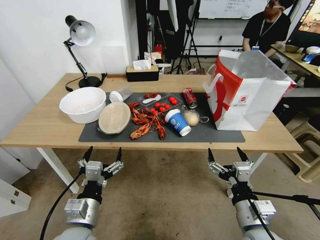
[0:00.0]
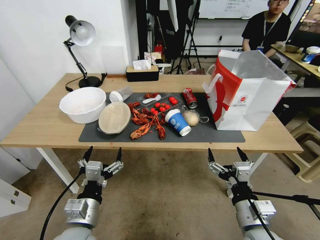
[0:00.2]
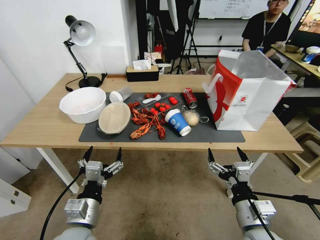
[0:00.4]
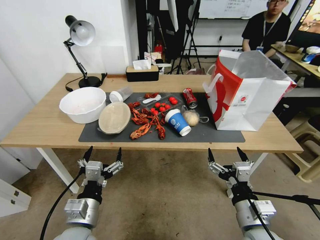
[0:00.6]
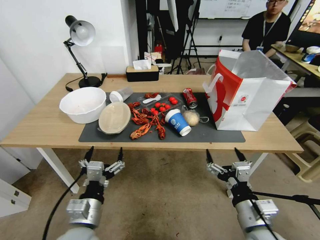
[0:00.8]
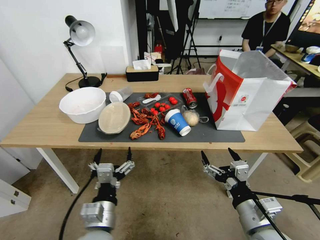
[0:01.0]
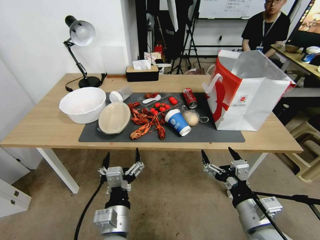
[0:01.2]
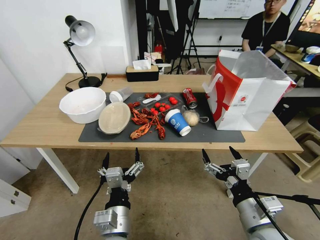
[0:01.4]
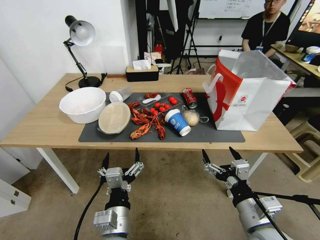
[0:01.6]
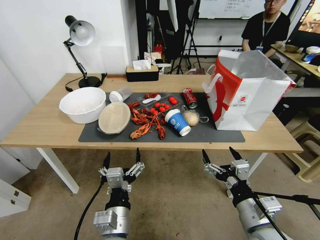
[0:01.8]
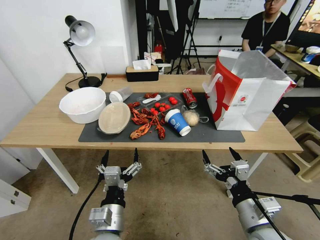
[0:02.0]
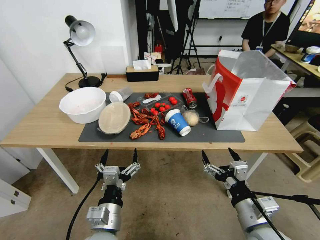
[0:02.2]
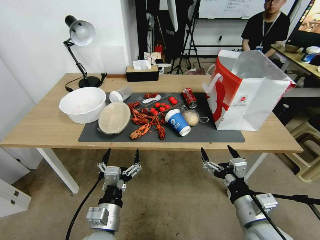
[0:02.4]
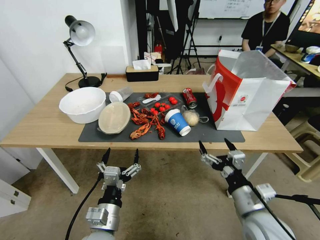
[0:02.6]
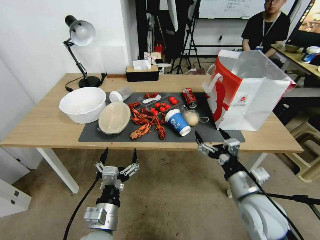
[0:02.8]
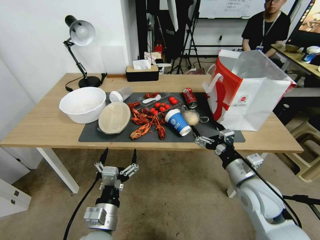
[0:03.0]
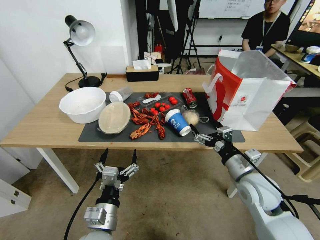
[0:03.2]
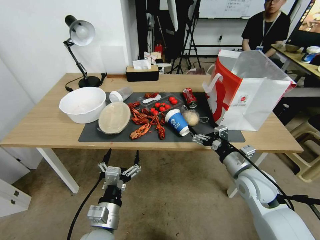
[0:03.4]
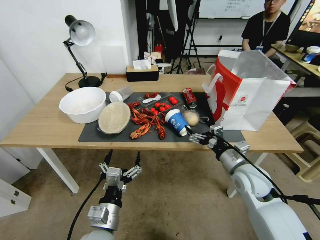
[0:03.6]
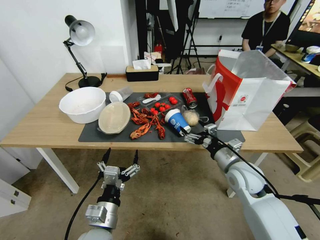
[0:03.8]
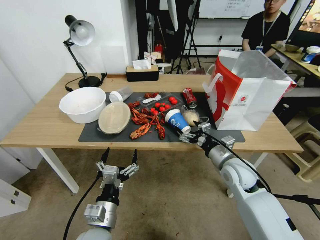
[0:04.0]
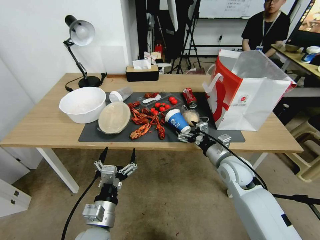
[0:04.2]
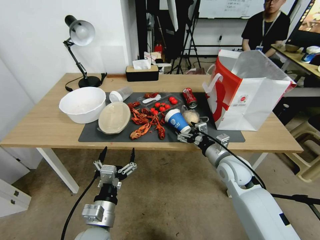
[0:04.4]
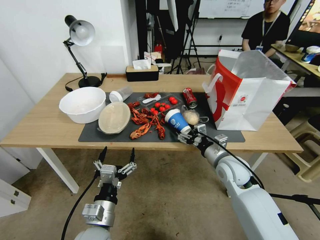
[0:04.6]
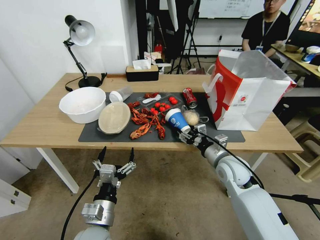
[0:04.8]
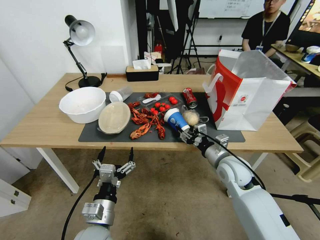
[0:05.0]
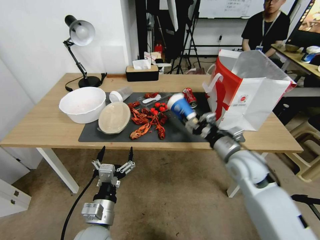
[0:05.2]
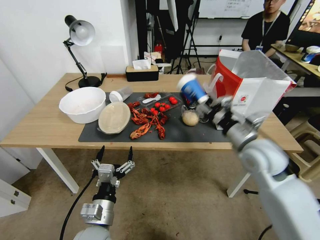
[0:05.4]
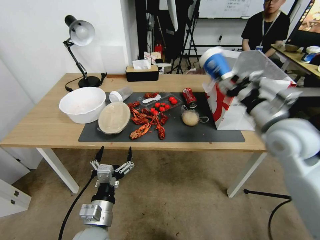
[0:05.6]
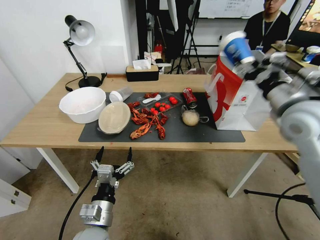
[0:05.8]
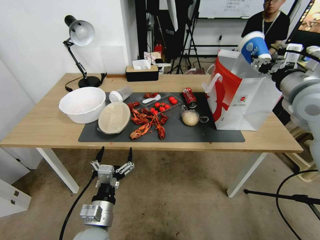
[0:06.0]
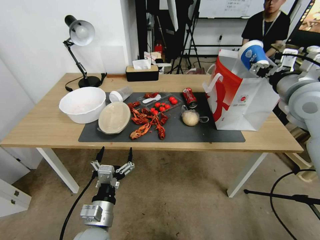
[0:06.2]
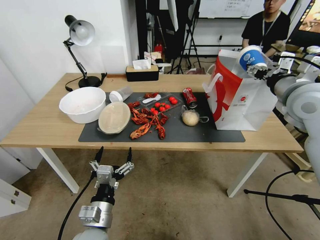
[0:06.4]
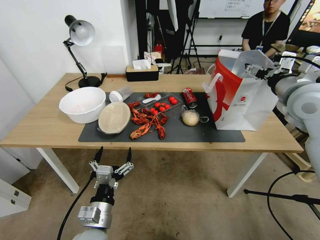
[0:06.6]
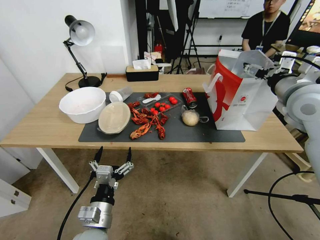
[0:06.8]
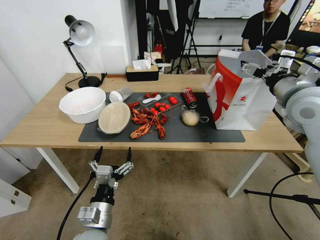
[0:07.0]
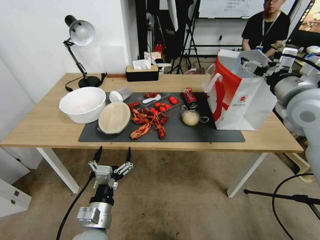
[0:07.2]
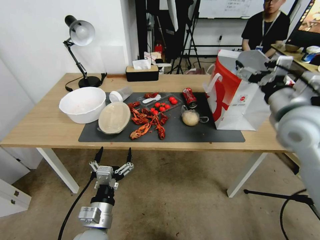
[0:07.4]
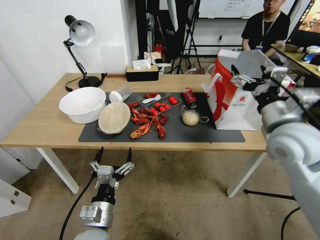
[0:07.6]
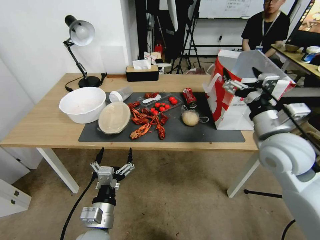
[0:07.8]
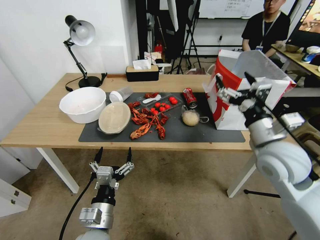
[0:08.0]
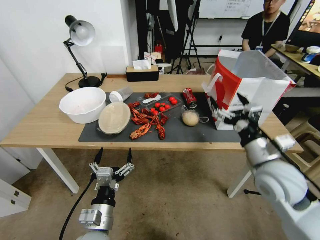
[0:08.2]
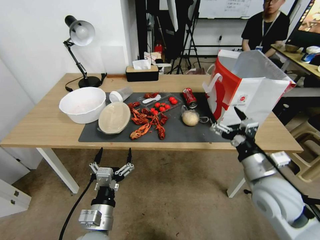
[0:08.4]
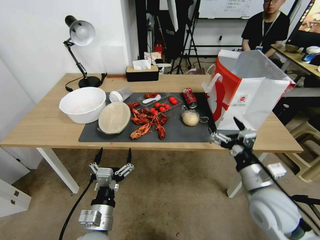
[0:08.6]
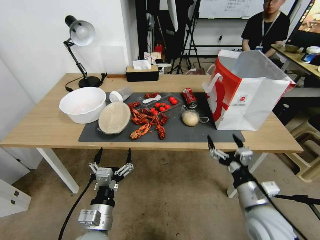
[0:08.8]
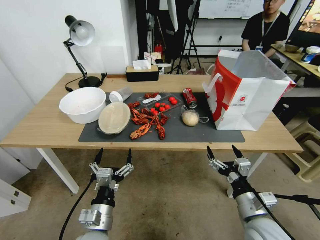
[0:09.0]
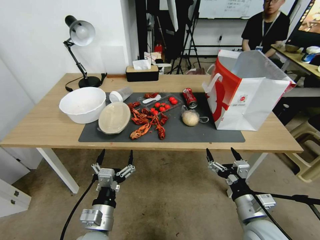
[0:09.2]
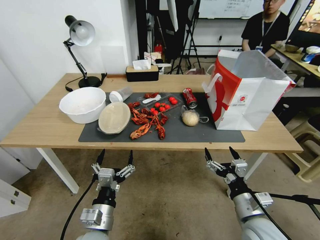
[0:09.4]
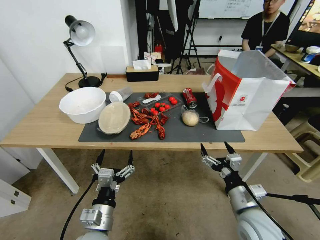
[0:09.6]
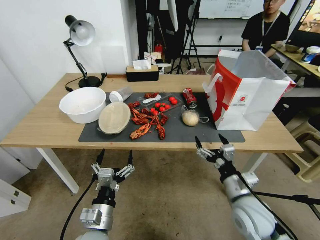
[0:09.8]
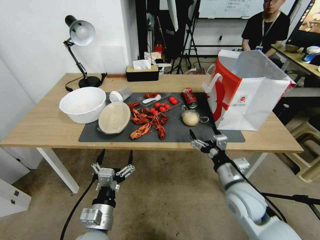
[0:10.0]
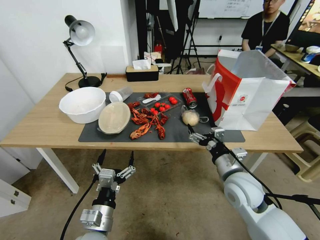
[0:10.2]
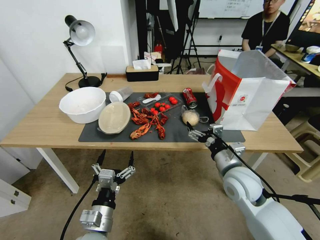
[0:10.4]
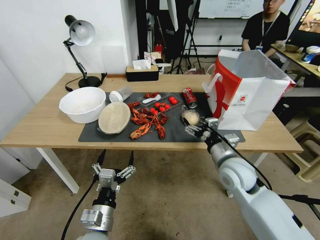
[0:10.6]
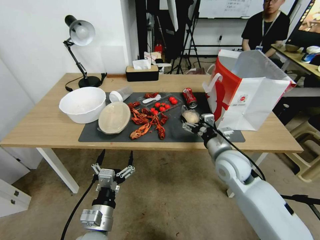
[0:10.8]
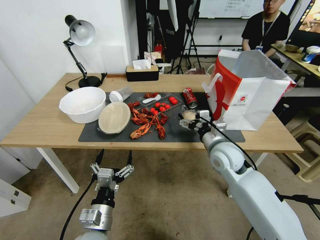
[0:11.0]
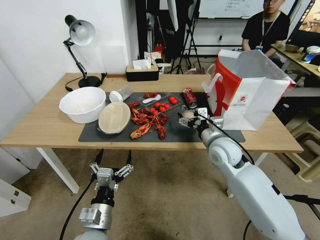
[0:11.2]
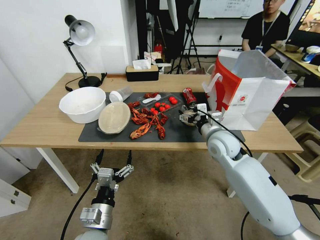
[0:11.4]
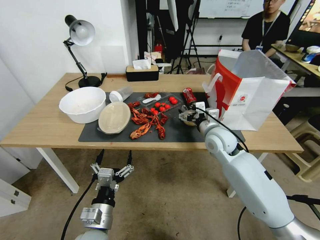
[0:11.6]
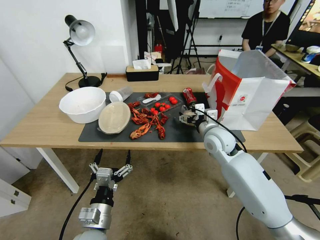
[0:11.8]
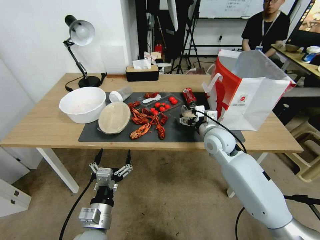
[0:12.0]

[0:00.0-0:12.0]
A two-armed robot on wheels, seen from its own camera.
0:01.6 to 0:03.0: The right gripper travels forward by some 10 cm. The left gripper travels to the left by approximately 5 cm.
0:03.0 to 0:04.4: The right gripper shifts some 10 cm forward.
0:04.4 to 0:06.0: The right gripper travels upward and to the right by approximately 30 cm, and closes.
0:06.0 to 0:07.6: The right gripper travels downward by roughly 5 cm, and opens.
0:07.6 to 0:09.0: The right gripper moves downward and backward, about 25 cm.
0:09.0 to 0:10.4: The right gripper heads forward, covering approximately 10 cm.
0:10.4 to 0:12.0: The right gripper shifts some 10 cm forward.

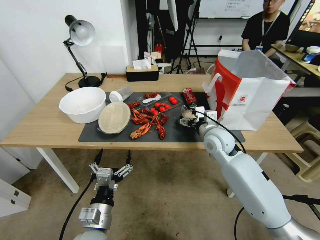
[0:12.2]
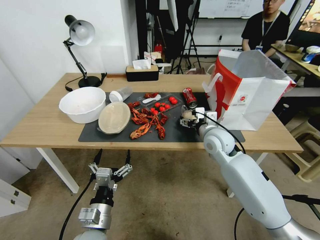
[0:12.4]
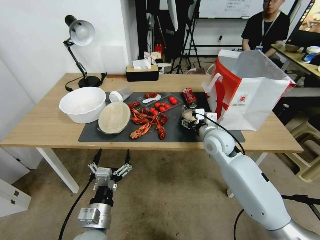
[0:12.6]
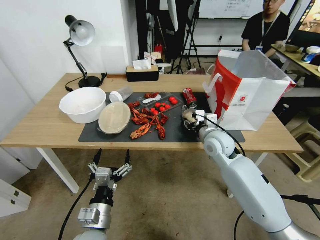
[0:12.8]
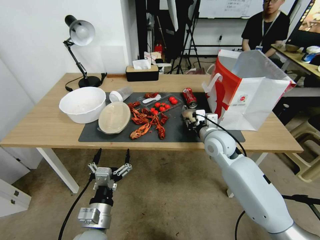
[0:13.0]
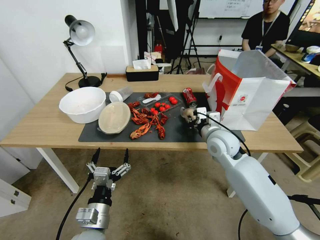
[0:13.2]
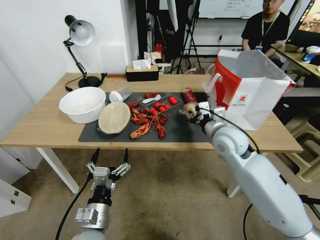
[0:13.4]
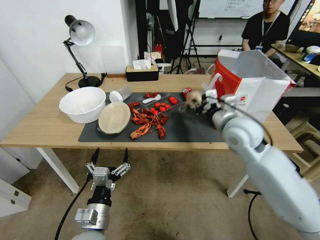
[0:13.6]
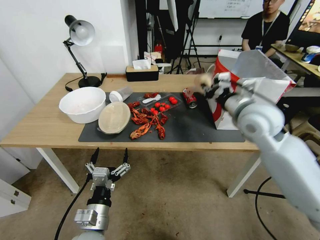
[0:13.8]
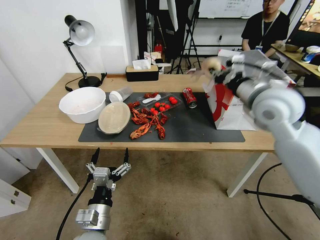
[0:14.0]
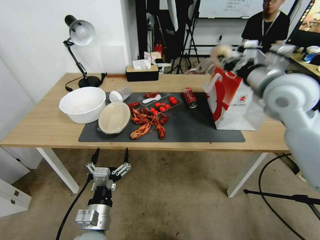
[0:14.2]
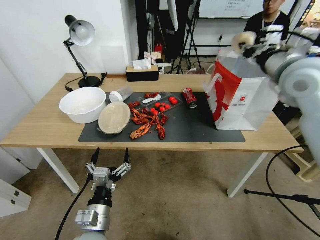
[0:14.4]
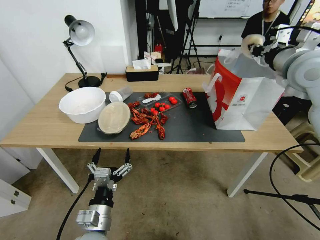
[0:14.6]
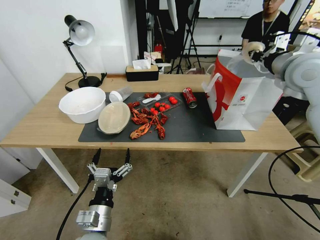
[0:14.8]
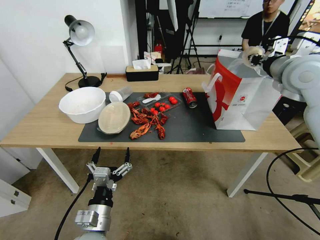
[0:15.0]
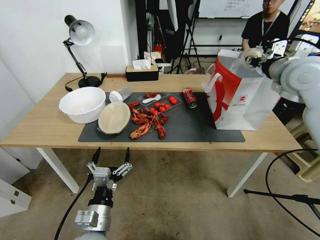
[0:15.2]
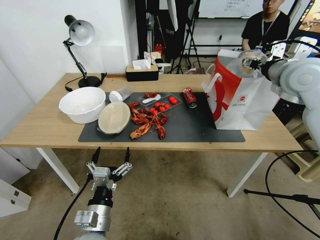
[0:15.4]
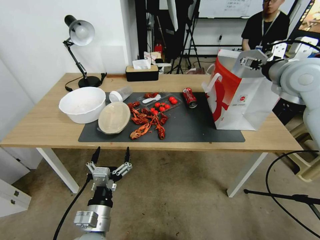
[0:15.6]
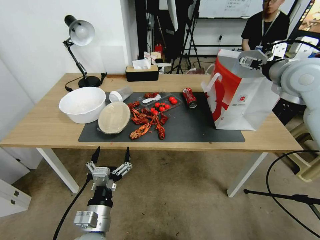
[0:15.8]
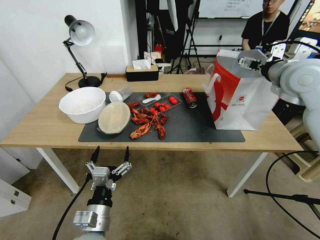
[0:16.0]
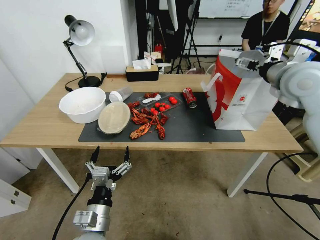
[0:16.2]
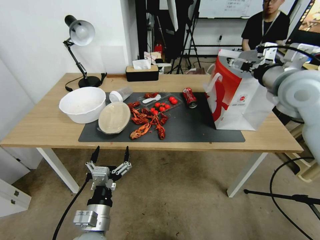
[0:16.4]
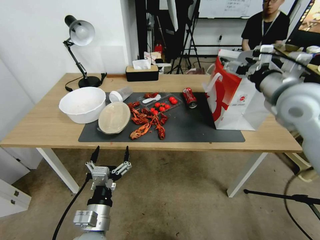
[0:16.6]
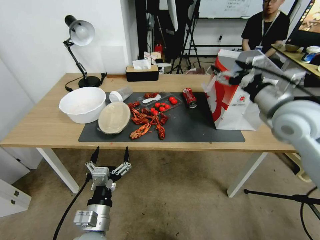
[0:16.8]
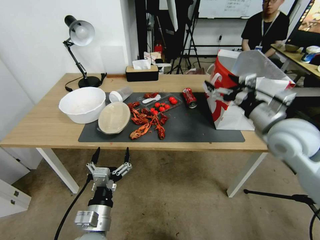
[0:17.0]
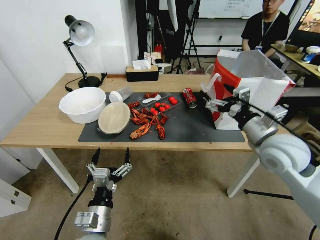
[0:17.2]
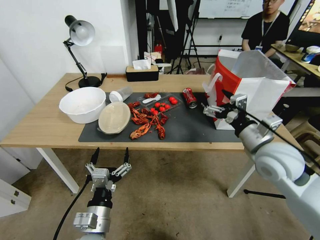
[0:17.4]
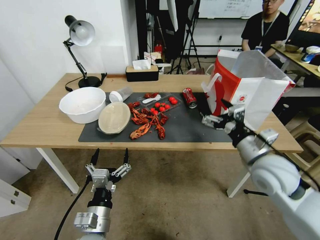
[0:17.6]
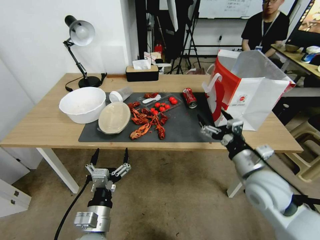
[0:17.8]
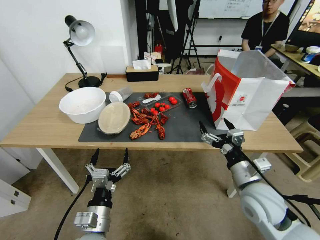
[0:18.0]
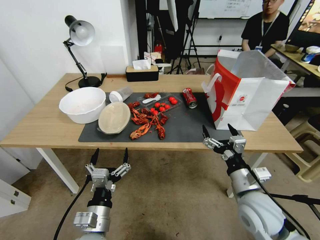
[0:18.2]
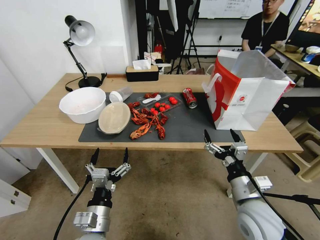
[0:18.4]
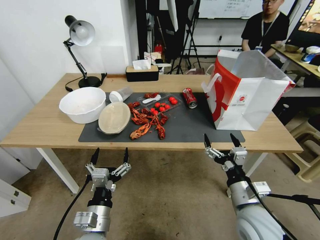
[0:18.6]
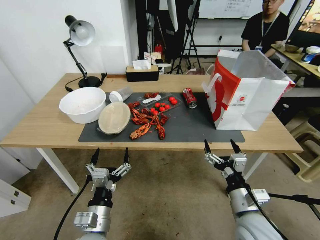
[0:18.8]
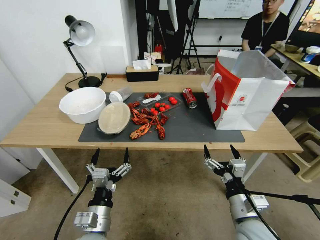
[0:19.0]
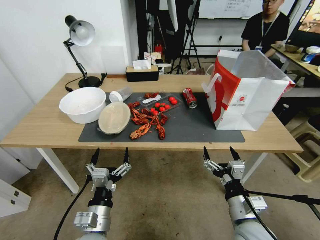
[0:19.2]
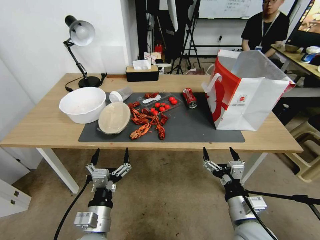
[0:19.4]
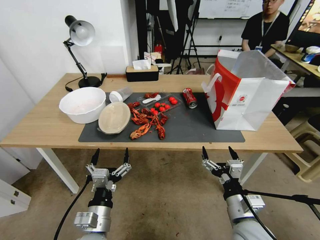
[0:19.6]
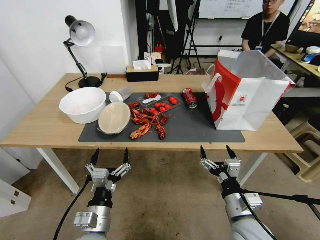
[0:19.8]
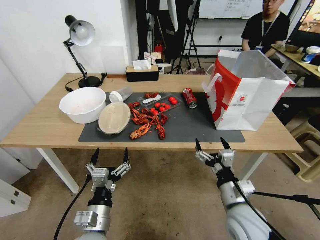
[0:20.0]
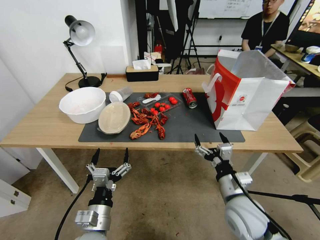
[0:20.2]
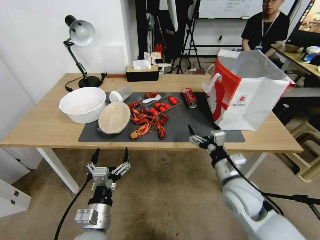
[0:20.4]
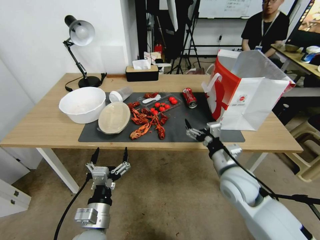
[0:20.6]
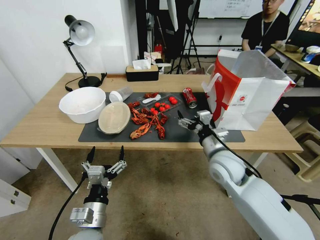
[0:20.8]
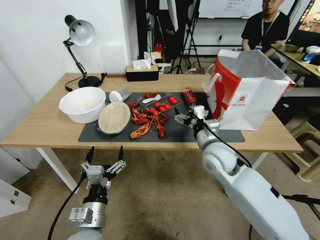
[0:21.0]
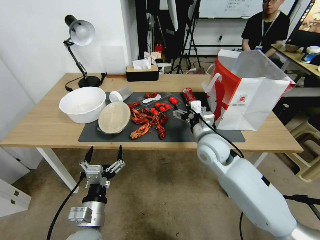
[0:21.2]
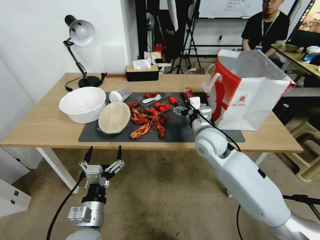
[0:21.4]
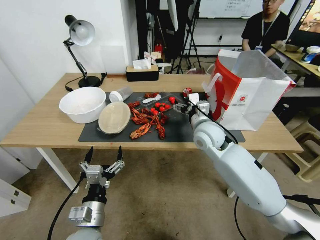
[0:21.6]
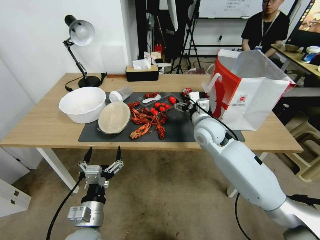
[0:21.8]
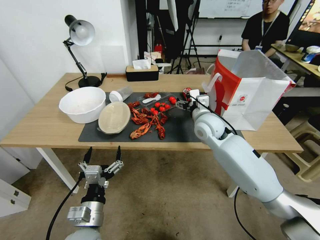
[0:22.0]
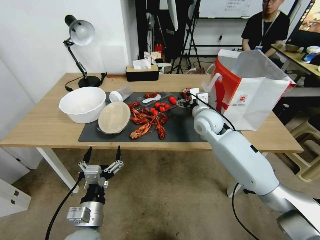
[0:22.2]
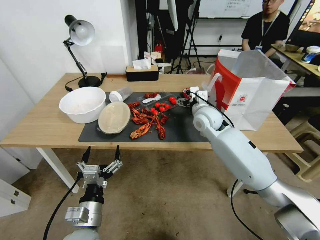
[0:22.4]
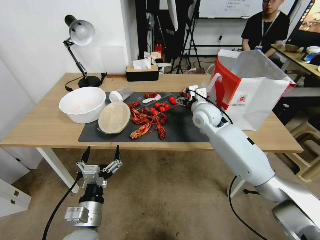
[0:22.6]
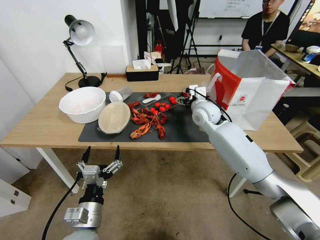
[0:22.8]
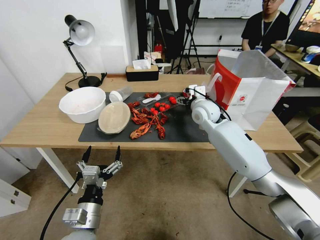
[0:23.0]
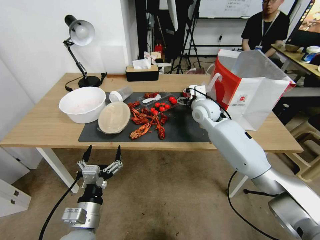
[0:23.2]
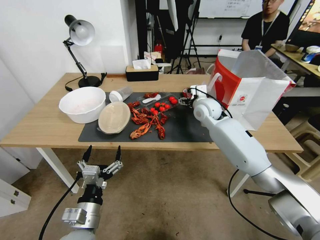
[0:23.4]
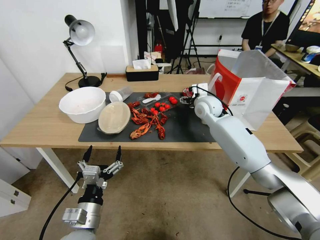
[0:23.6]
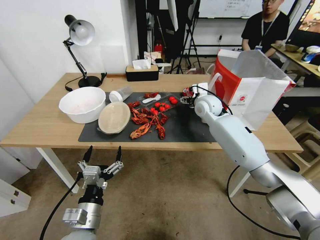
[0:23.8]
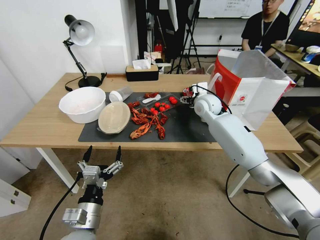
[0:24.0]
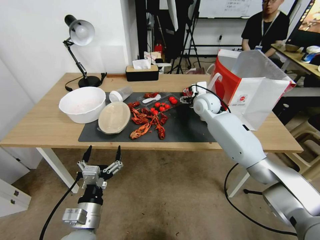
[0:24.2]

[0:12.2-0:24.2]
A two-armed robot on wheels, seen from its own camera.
0:12.2 to 0:13.8: The right gripper moves upward, about 15 cm, and closes up.
0:13.8 to 0:15.2: The right gripper moves upward, to the right and forward, about 15 cm.
0:15.2 to 0:16.6: The right gripper is displaced backward by some 5 cm, and opens its fingers.
0:16.6 to 0:18.2: The right gripper travels downward and backward by roughly 25 cm.
0:18.2 to 0:19.8: The right gripper moves backward and downward, about 10 cm.
0:19.8 to 0:21.2: The right gripper travels forward and upward by approximately 25 cm.
0:21.2 to 0:22.6: The right gripper heads forward, covering some 10 cm.
0:22.6 to 0:24.2: The right gripper is displaced forward by approximately 5 cm.
